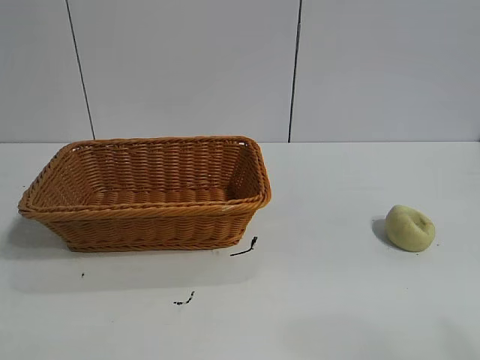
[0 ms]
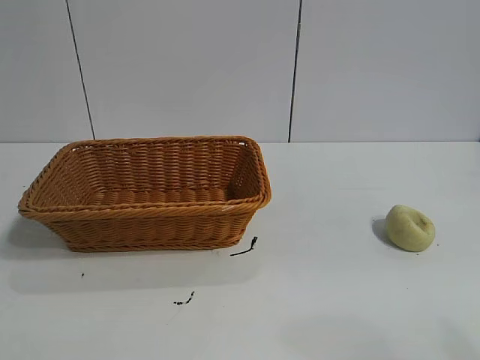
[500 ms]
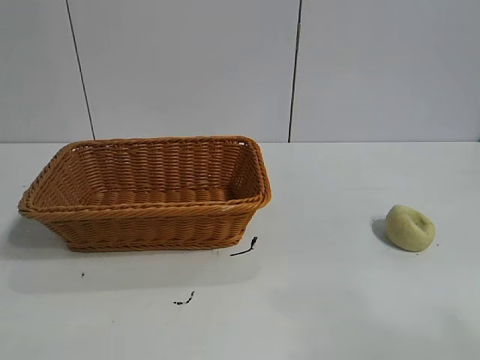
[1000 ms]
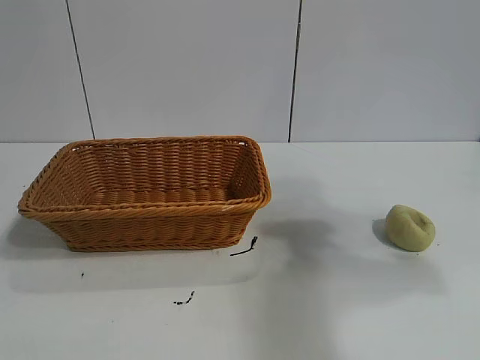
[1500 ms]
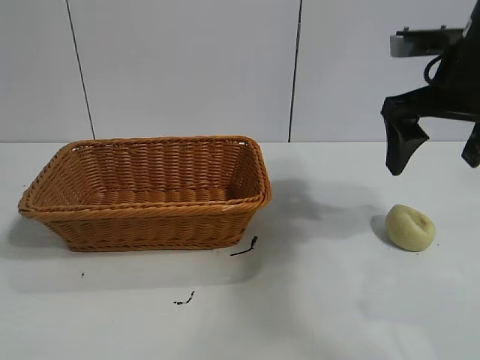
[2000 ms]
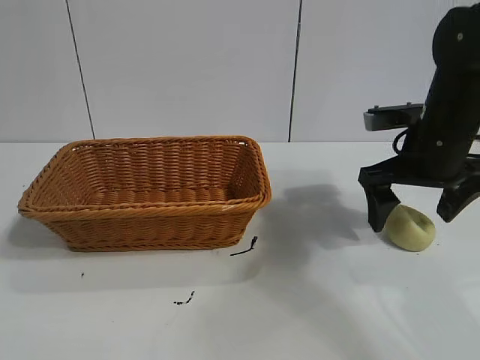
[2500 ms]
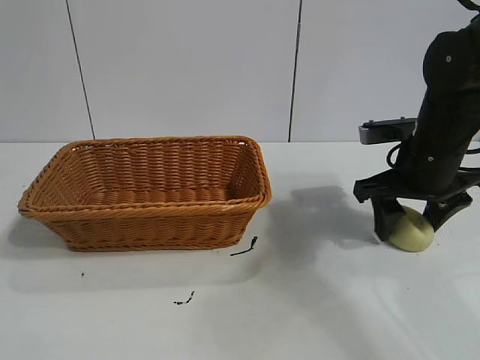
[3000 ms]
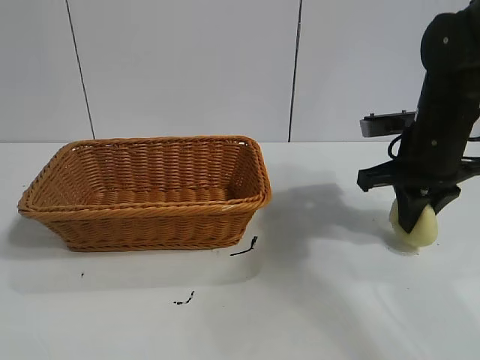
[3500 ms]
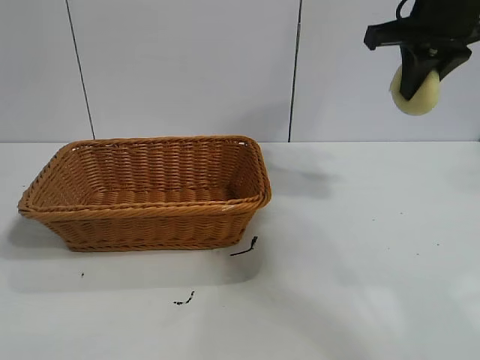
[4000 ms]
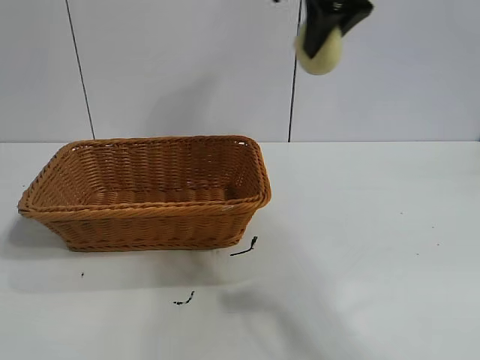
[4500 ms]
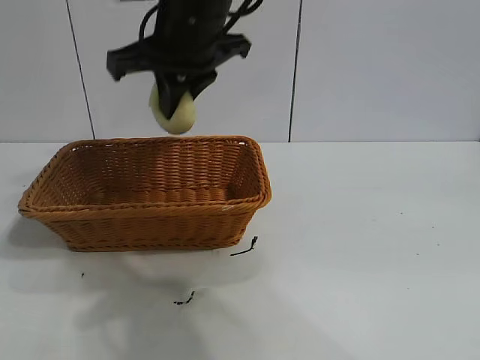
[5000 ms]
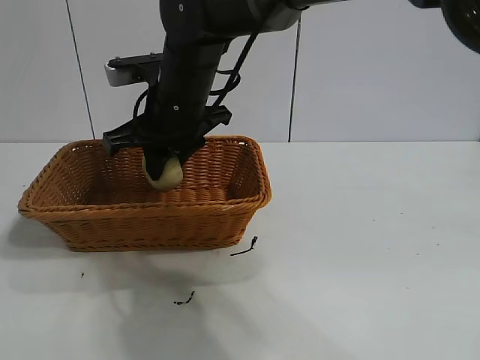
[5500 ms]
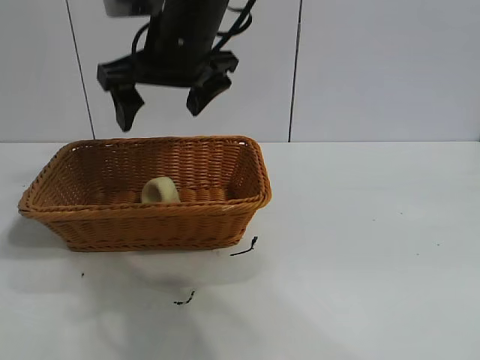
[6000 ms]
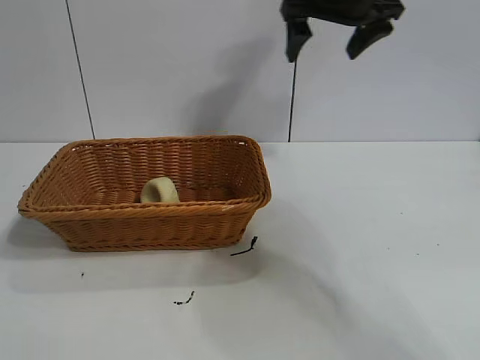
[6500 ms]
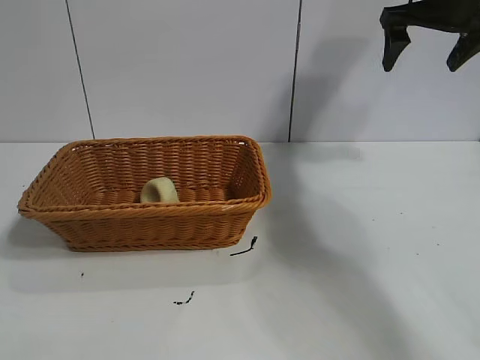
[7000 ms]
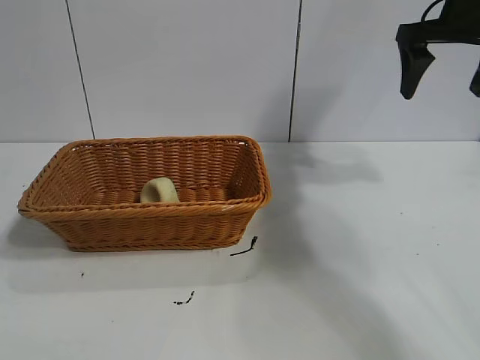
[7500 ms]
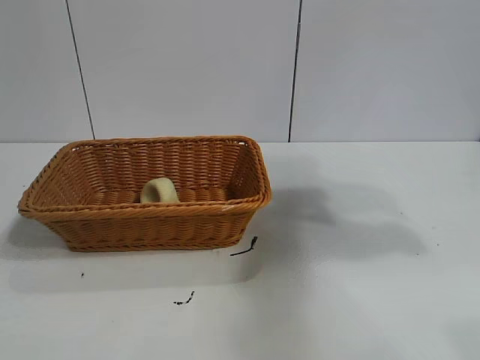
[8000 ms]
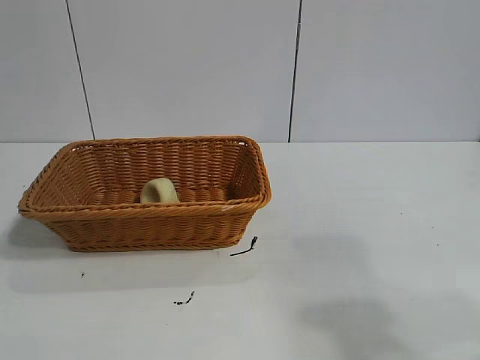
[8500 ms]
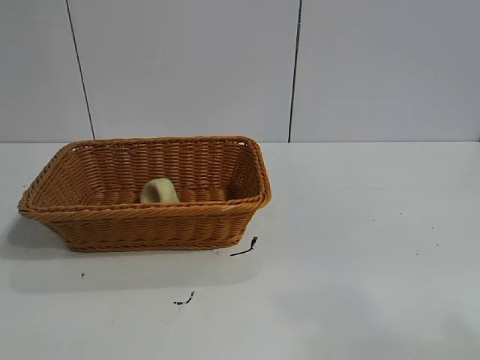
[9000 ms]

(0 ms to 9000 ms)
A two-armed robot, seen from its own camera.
Task of the whole recording: pick up the egg yolk pastry and put it into the basket.
Step, 1000 ms - 3000 ms: Grasp egg yolk pastry with right gripper.
Step, 3500 ms - 5500 ms: Place the egg yolk pastry in the basket with right gripper.
